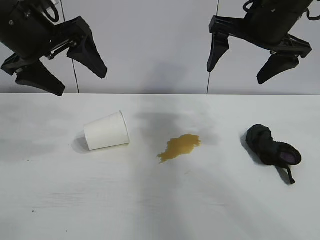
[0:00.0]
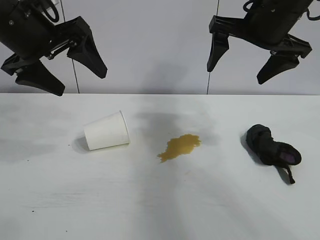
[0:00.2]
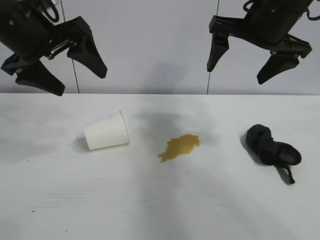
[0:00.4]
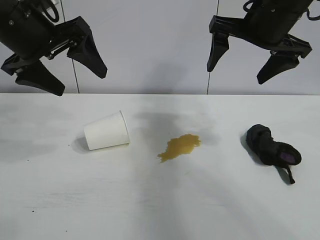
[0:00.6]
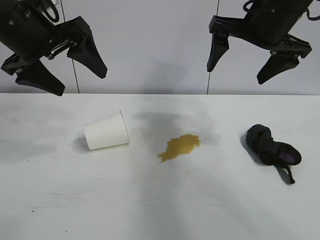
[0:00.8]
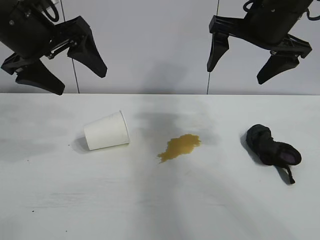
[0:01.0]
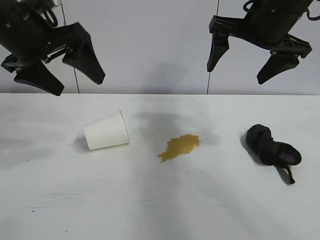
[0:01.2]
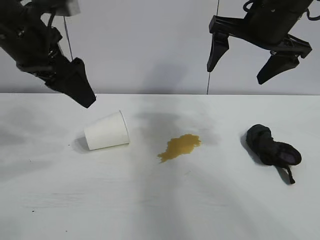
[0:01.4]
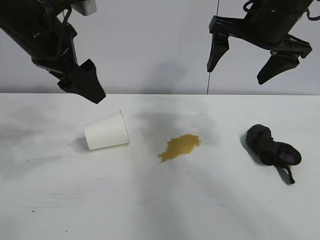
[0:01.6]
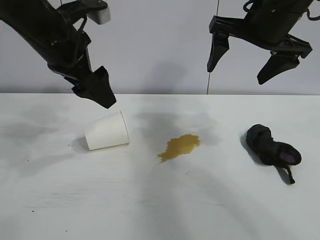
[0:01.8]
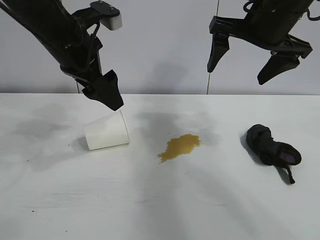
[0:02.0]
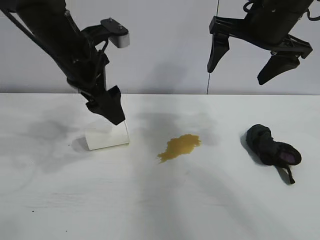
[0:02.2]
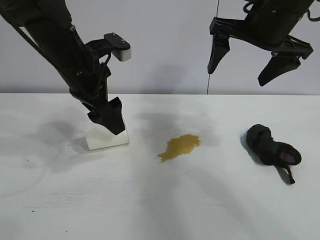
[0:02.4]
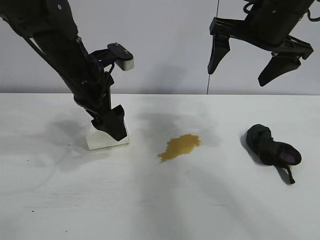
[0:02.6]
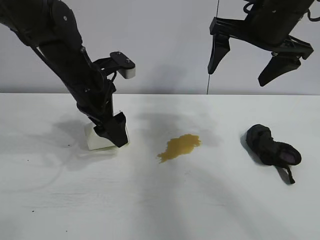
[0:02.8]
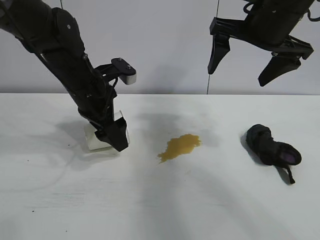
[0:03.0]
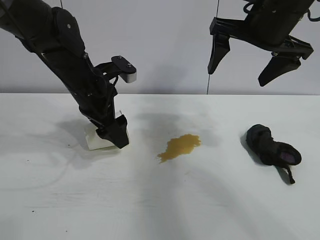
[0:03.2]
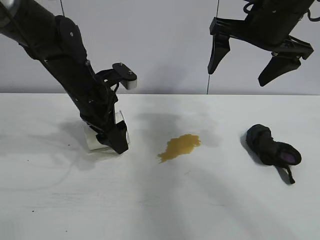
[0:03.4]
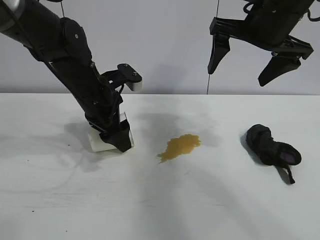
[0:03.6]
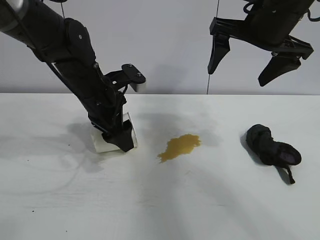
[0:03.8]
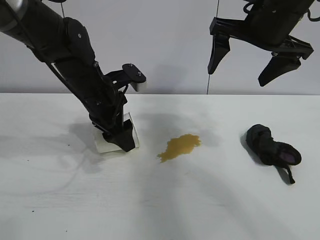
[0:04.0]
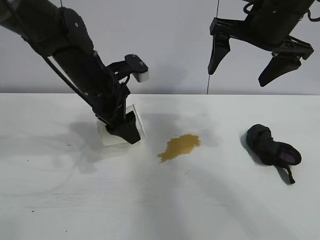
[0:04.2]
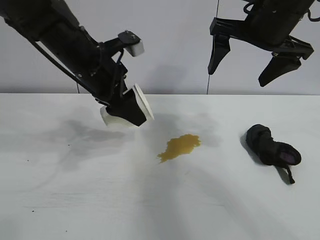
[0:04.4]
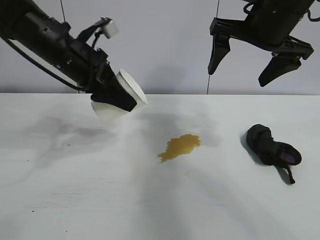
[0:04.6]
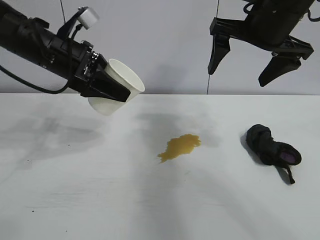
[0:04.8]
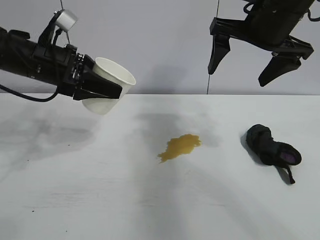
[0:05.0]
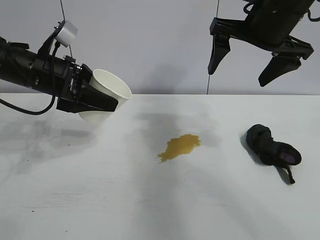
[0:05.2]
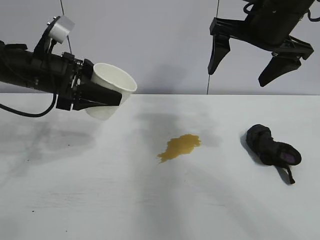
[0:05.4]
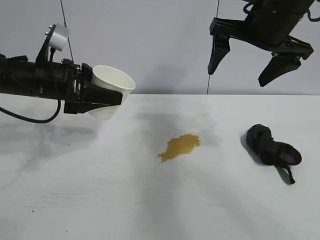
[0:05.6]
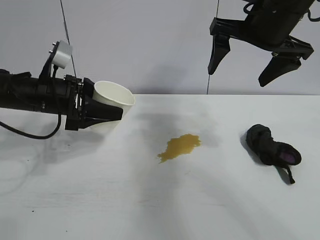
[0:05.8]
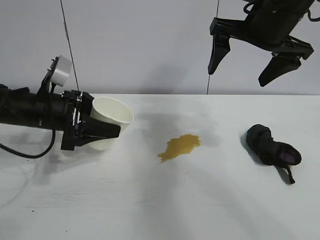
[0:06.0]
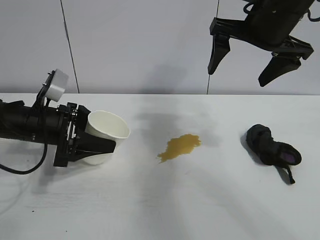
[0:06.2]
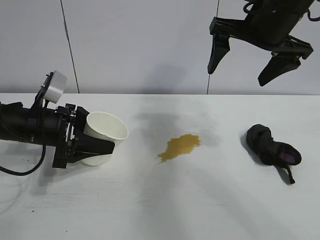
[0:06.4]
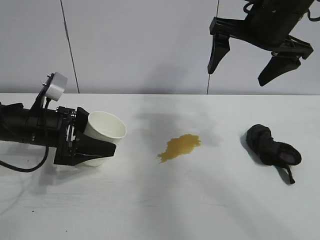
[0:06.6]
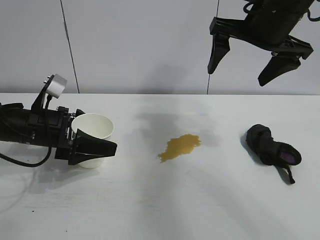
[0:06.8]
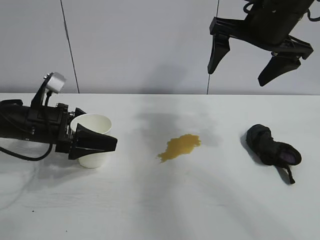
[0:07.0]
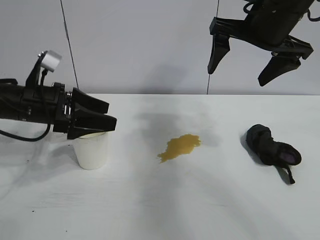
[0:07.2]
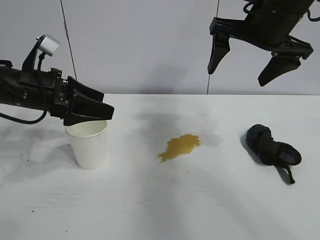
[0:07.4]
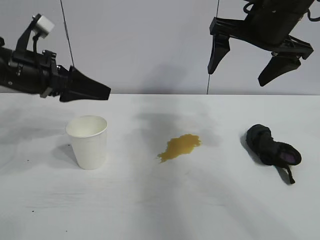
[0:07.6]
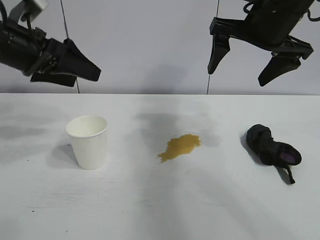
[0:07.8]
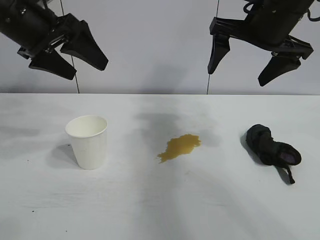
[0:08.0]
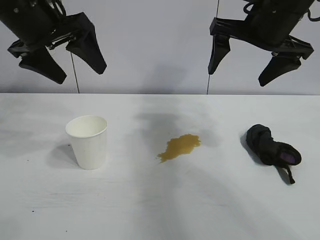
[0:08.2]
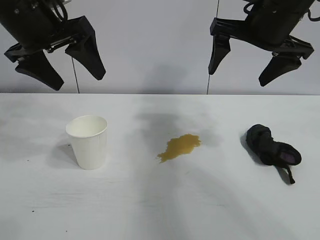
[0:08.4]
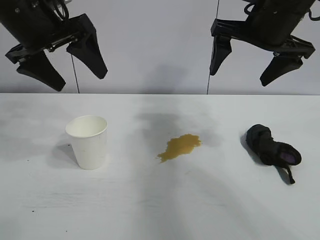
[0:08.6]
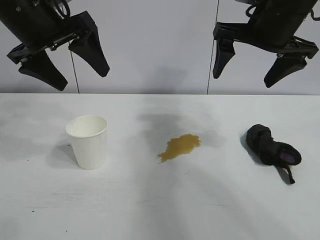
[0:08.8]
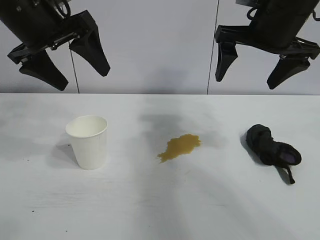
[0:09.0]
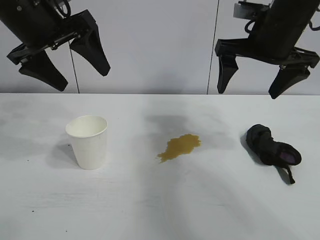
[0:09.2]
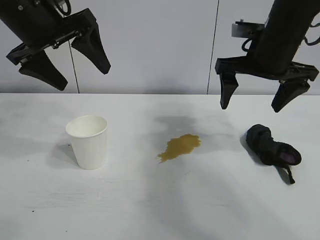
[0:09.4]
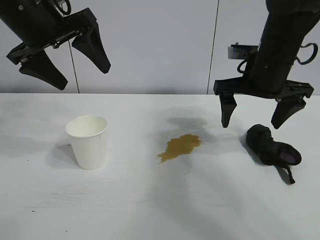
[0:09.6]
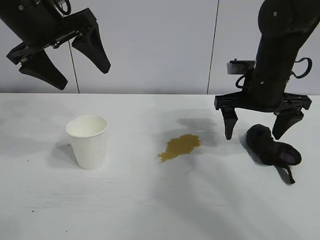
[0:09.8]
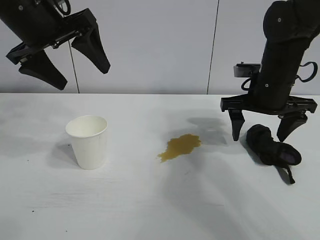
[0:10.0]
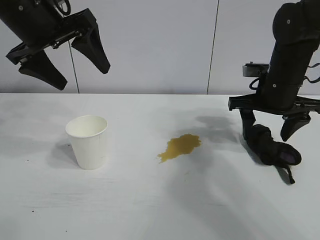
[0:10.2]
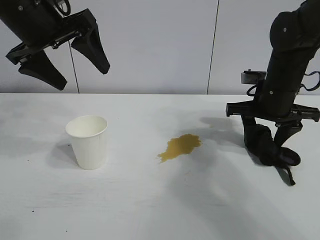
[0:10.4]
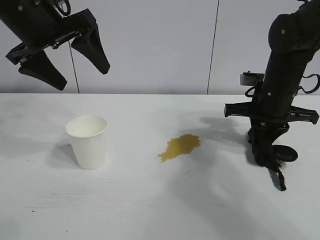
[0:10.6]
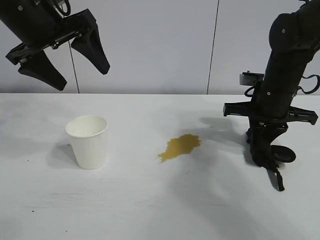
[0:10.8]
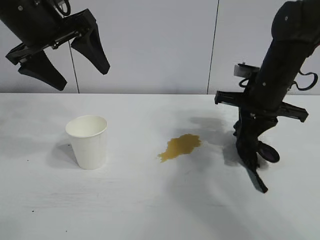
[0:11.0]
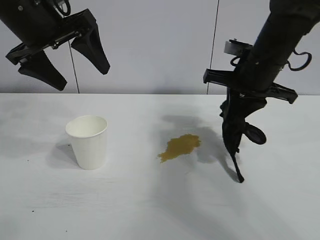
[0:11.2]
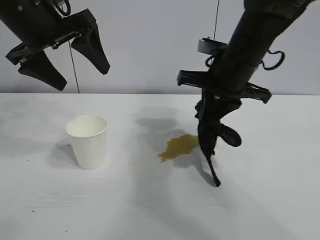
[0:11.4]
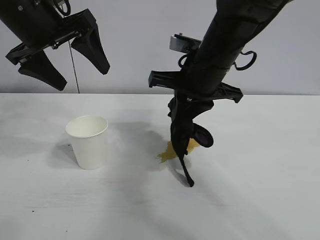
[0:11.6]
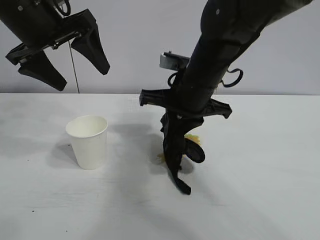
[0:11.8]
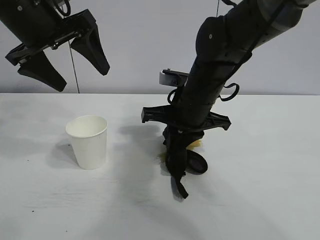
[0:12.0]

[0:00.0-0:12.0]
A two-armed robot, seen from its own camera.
Task of the whole recording: the left gripper pick up the fallen cup and place it upright, the right gripper grasp the black rag and wipe the stain on the table, the right gripper put the black rag back in its original position.
Step, 0:01.2 to 0:03.6: Grasp the paper cup with left gripper.
Step, 0:04.0 to 0:06.6: Stand the paper cup upright with left gripper.
Step, 0:07.0 to 0:10.4: Grasp the rag with right gripper.

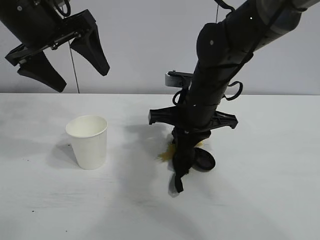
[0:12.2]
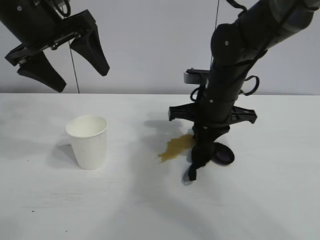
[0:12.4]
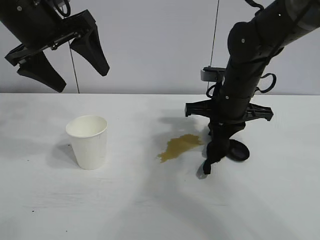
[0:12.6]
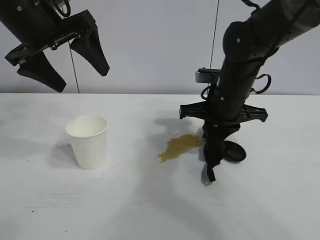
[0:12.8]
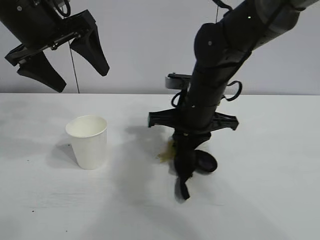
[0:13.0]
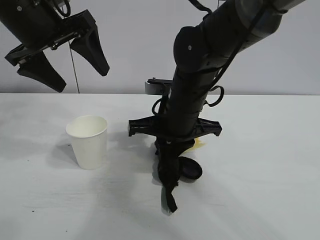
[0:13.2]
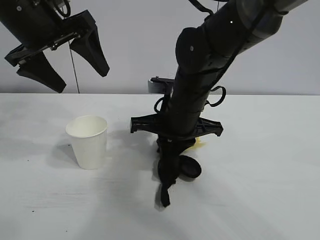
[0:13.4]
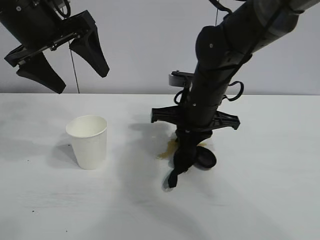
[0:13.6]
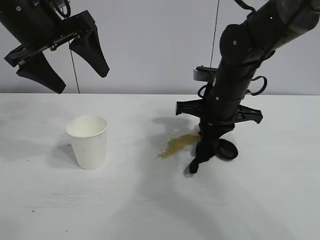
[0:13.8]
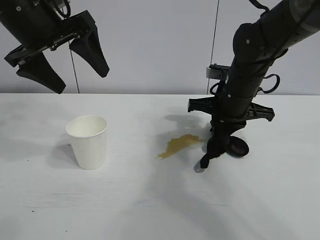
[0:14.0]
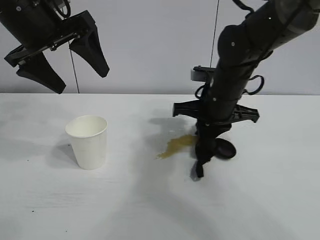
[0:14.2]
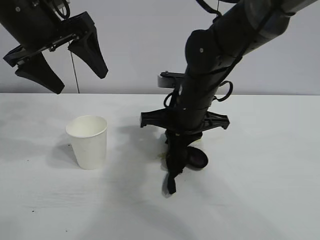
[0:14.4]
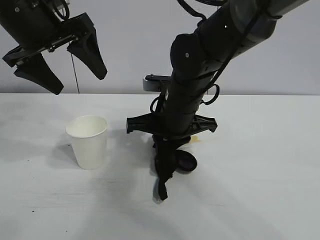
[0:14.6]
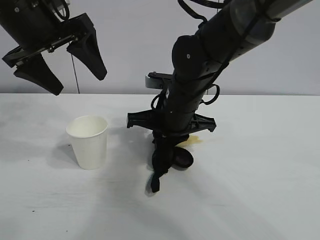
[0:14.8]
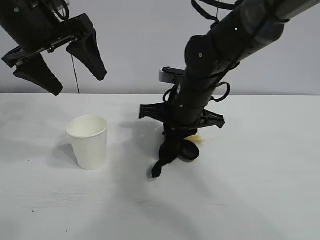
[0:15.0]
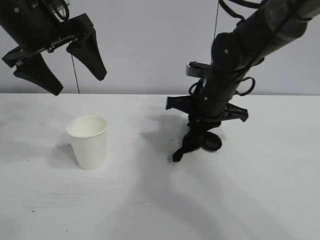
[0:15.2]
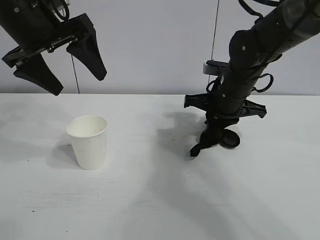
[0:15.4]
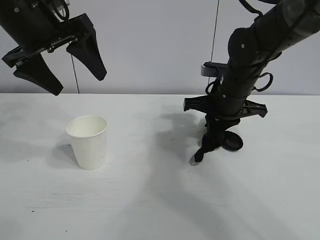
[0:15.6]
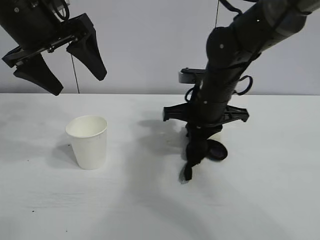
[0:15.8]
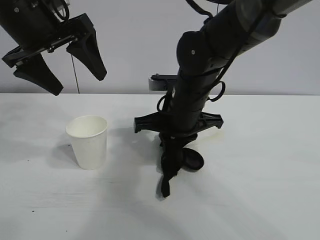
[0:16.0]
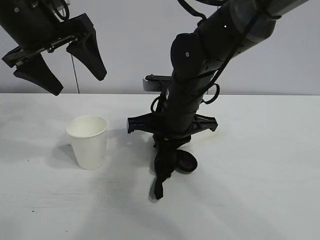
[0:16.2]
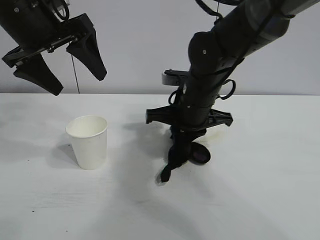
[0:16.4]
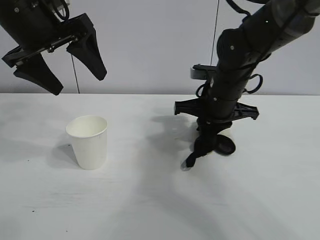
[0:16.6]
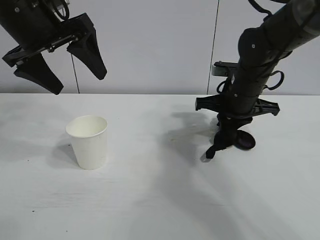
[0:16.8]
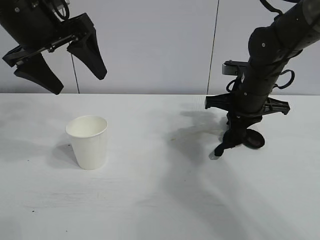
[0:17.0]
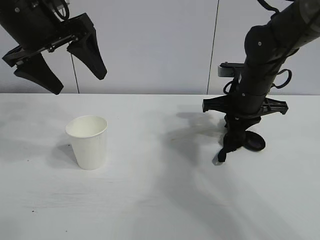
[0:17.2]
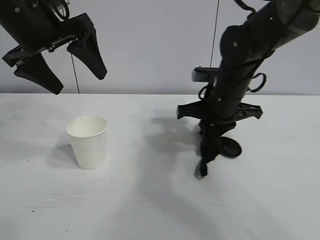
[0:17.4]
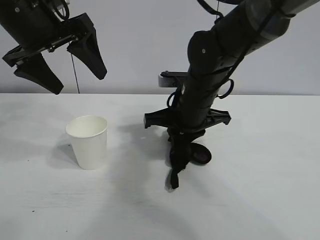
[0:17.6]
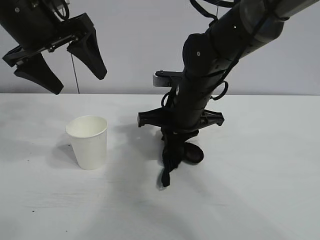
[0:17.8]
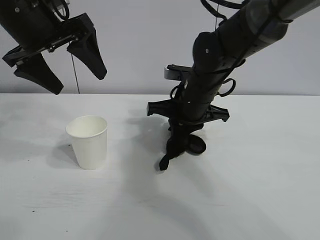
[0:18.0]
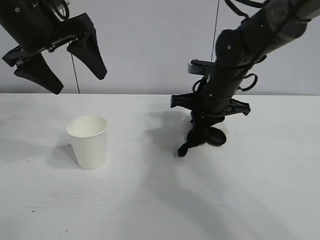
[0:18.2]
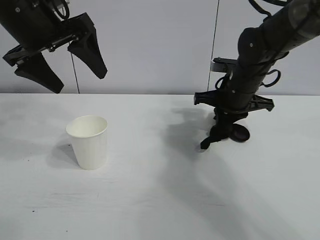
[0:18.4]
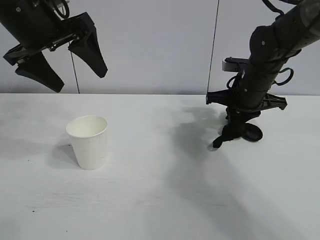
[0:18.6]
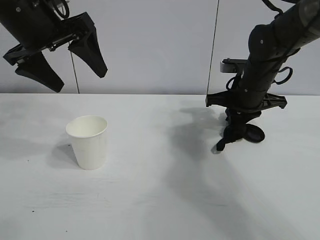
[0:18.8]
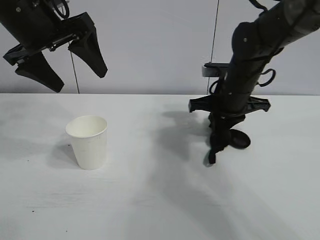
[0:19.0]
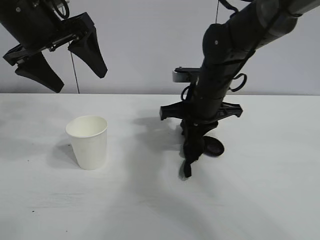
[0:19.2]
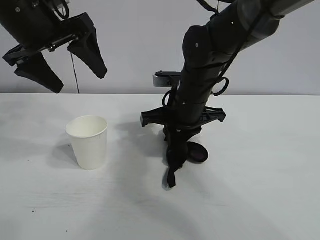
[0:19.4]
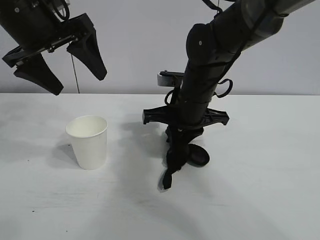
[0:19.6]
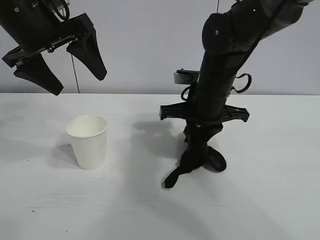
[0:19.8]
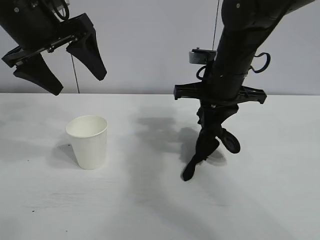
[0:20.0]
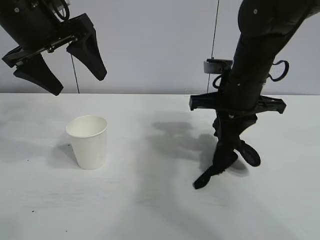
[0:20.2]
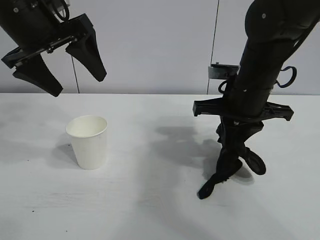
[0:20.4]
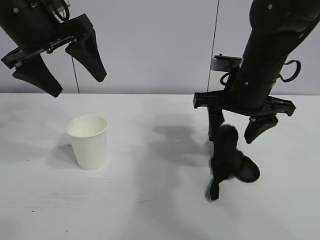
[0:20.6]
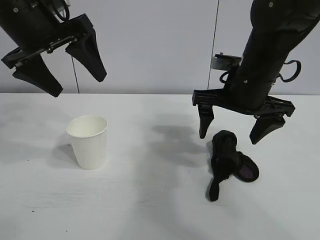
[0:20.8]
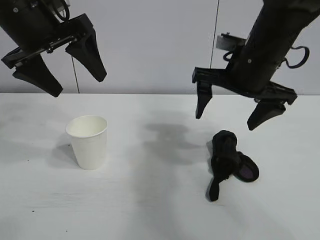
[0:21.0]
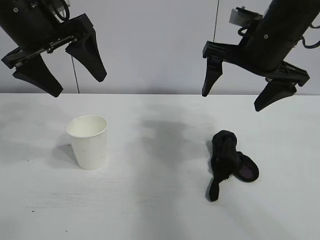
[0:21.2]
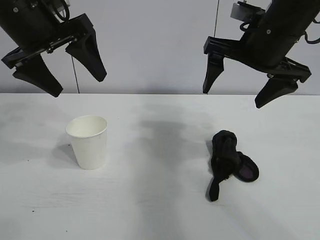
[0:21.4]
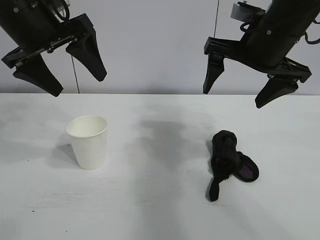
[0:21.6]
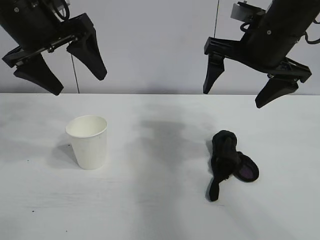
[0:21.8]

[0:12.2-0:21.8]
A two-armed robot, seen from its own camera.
Task of the whole recording: the left gripper pick up the fallen cup and place it upright, the right gripper grasp the black rag and wipe the stain on the table, the right gripper put the black rag back in its original position.
Step, 0:12.2 to 0:19.6: Wipe the stains off the table with the rag with right gripper.
Step, 0:19.8 to 0:20.6: Place the rag on the table with right gripper.
